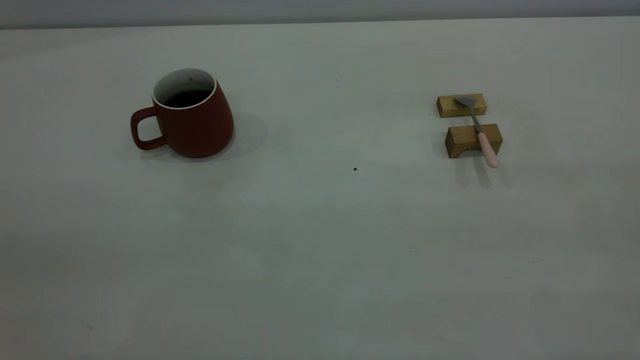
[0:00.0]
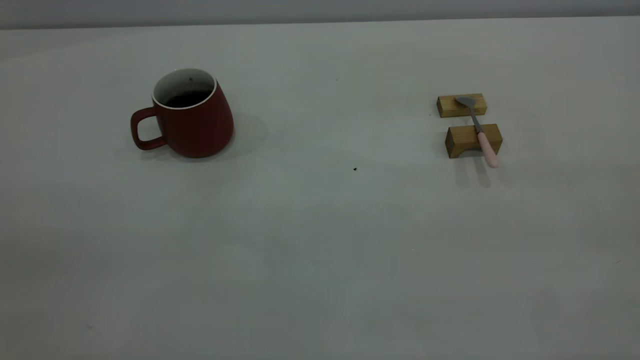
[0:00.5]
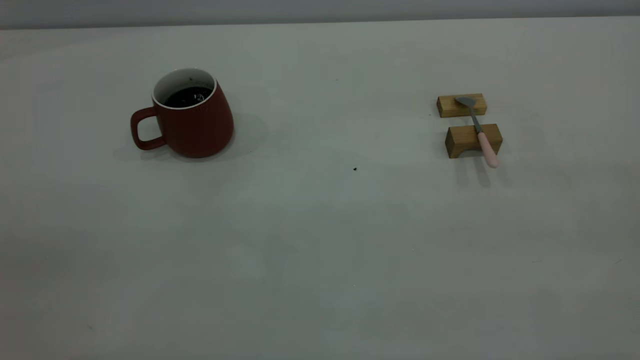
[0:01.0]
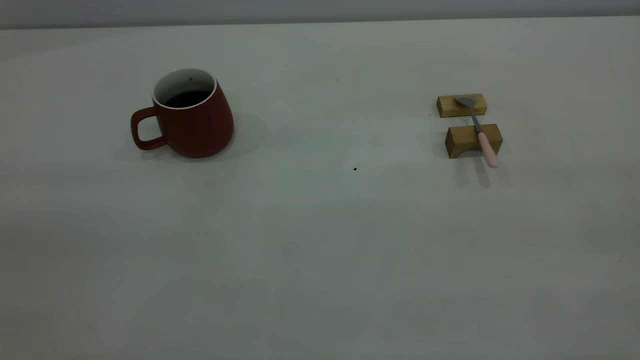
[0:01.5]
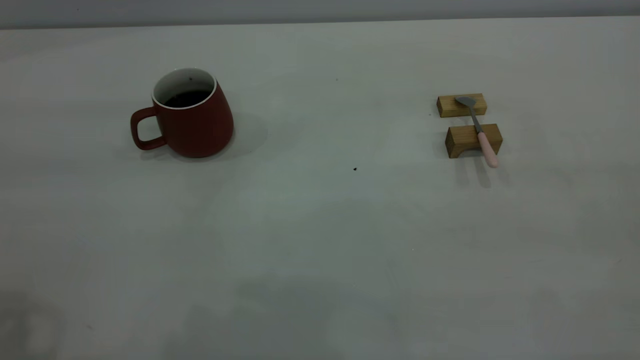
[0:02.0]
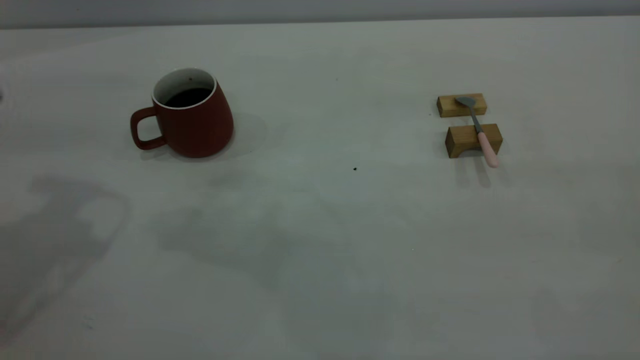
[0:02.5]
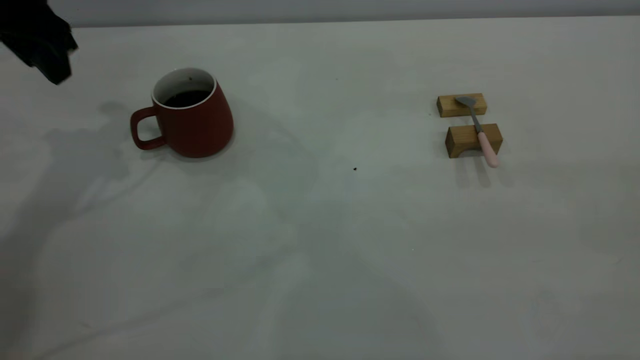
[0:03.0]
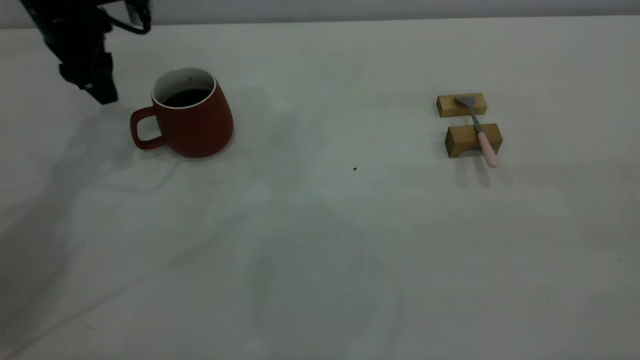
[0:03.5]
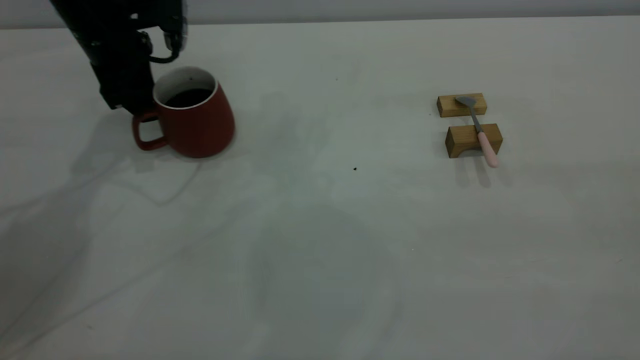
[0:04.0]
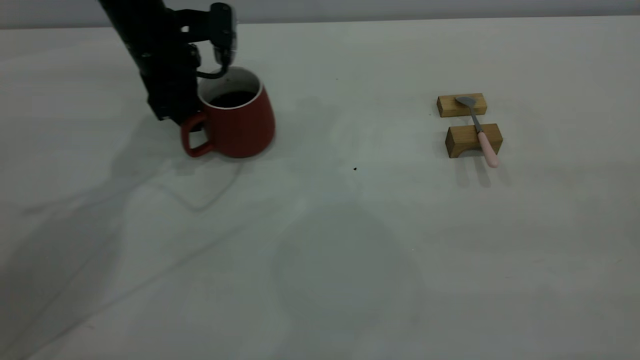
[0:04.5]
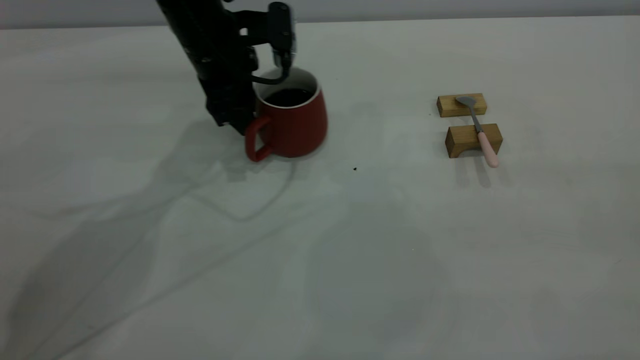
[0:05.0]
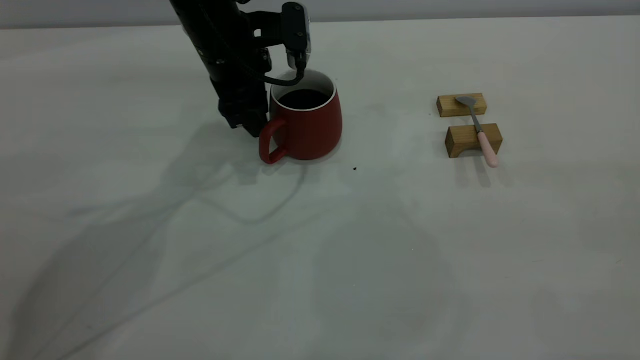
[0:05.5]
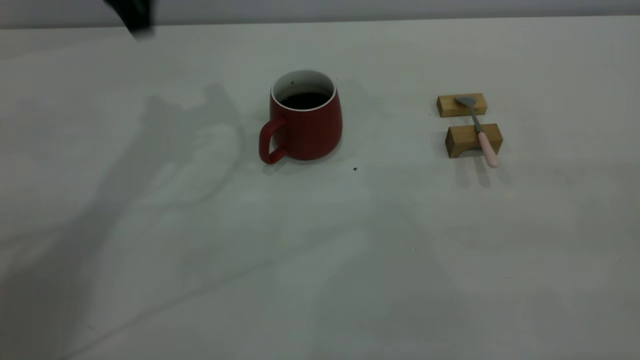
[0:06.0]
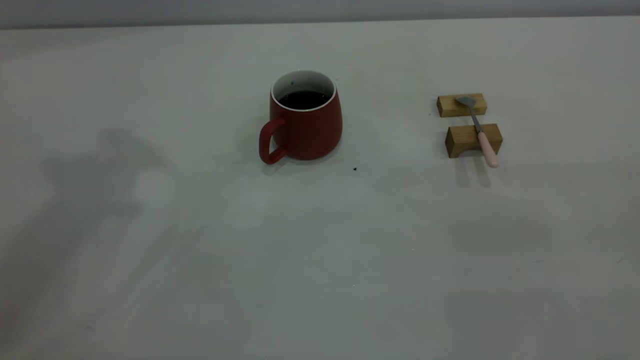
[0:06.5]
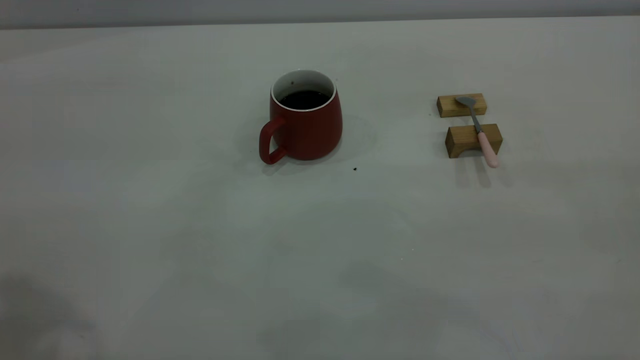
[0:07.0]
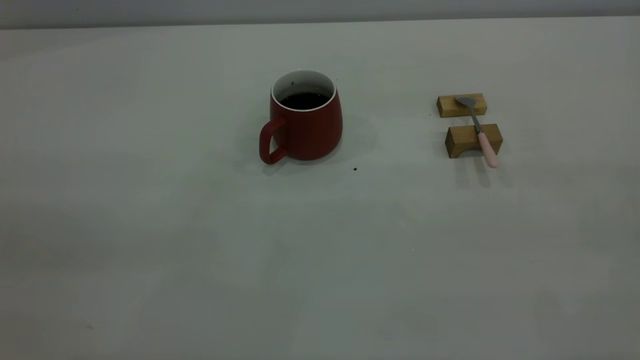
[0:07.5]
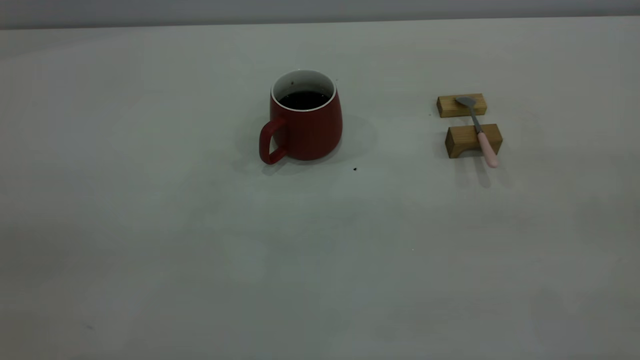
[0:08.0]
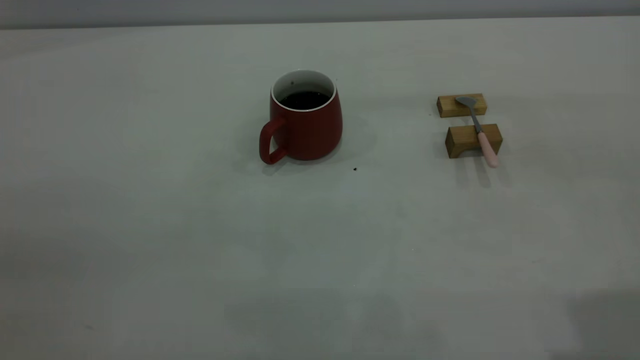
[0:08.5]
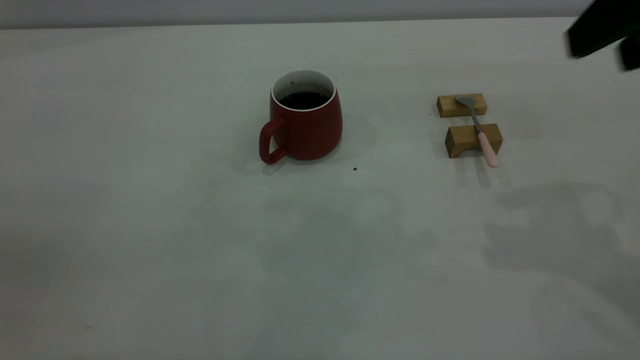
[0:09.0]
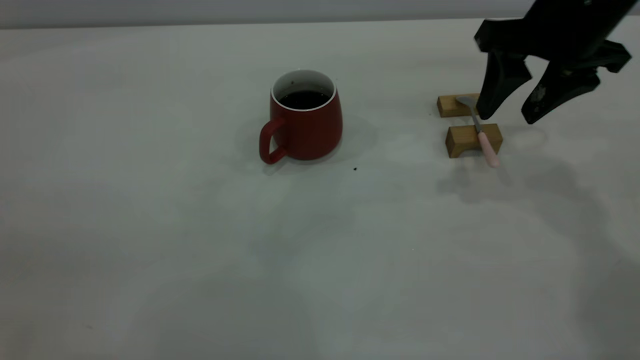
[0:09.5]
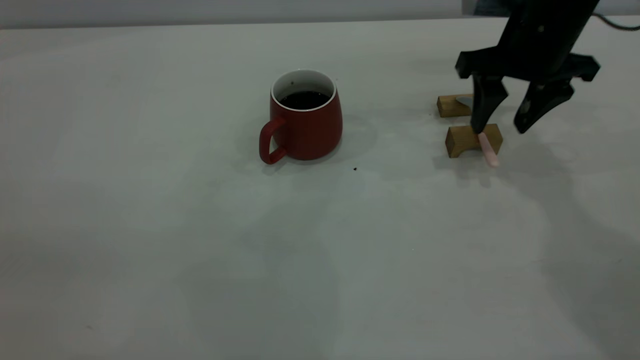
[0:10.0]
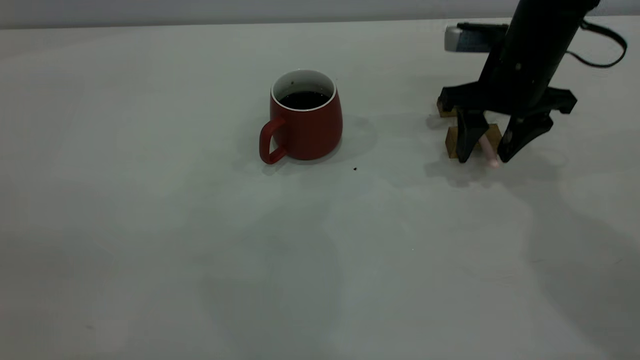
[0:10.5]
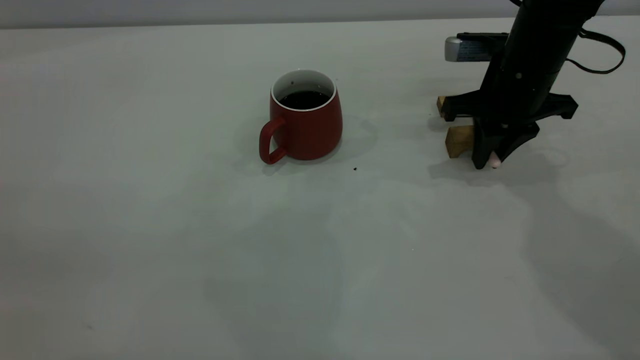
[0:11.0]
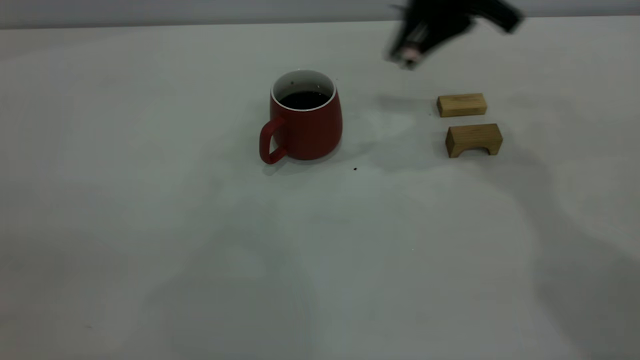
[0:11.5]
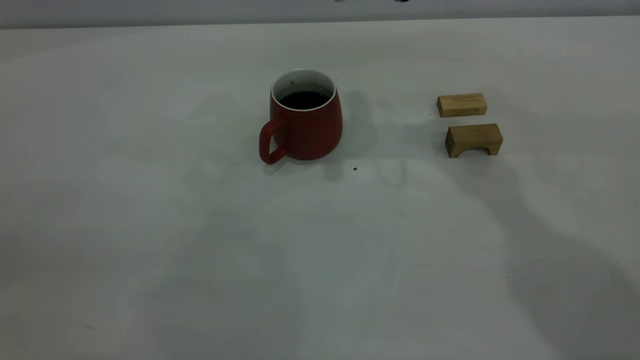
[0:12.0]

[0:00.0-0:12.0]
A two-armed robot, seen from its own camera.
Step, 0.0 to 5.5 s: Move the cup with coffee to the center of view.
Step, 6.0 to 11.0 s: Pick up the spoon.
2.0 to 4.0 s: The left gripper travels forward and downward by roughly 40 cm.
4.0 to 6.0 s: The left gripper travels upward by some 15 cm.
8.0 to 10.0 s: The right gripper travels forward and downward by approximately 40 cm, and opens its fingers.
10.0 to 12.0 s: The right gripper travels to the left and upward by about 20 cm, and closes up.

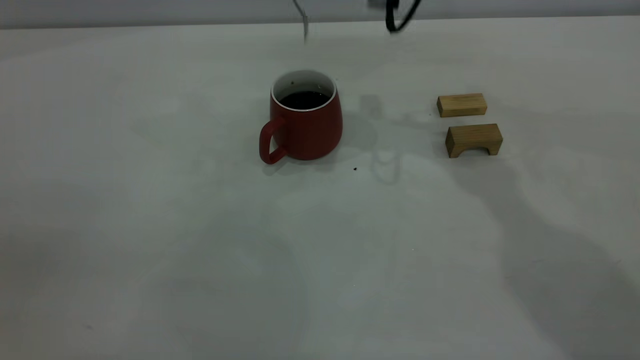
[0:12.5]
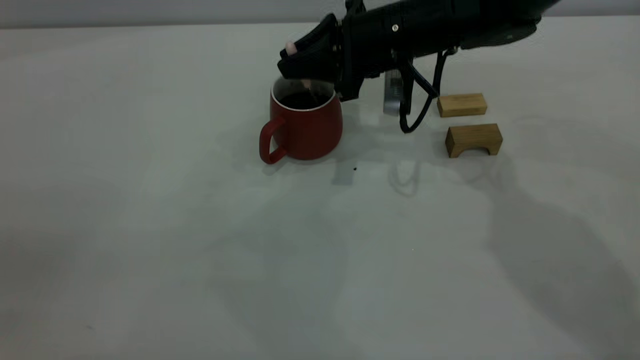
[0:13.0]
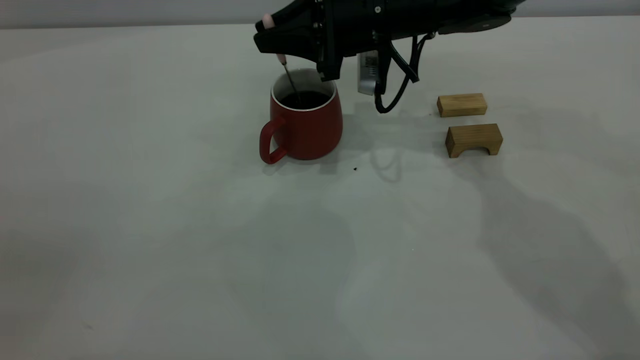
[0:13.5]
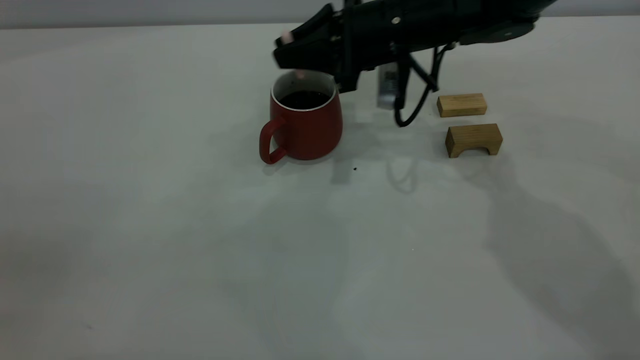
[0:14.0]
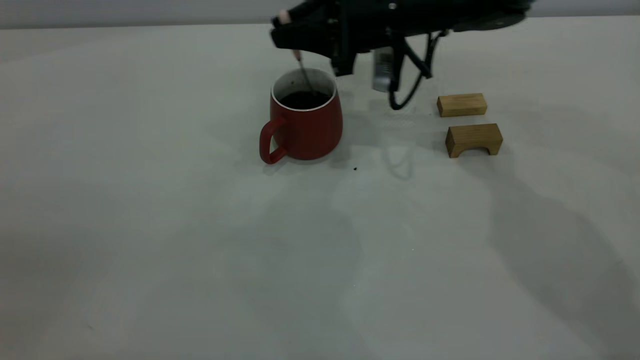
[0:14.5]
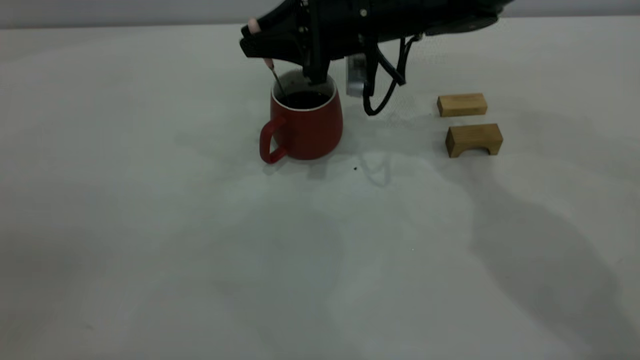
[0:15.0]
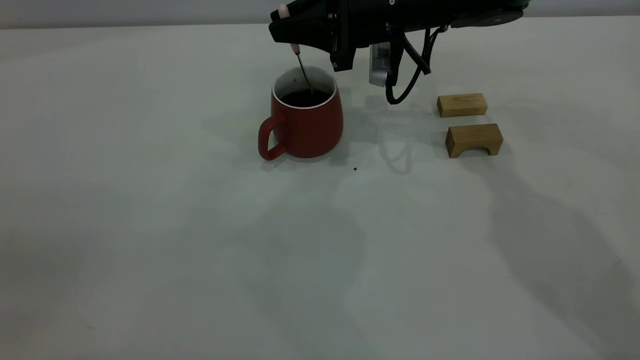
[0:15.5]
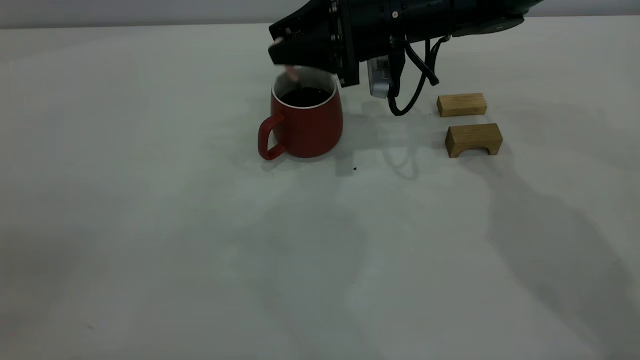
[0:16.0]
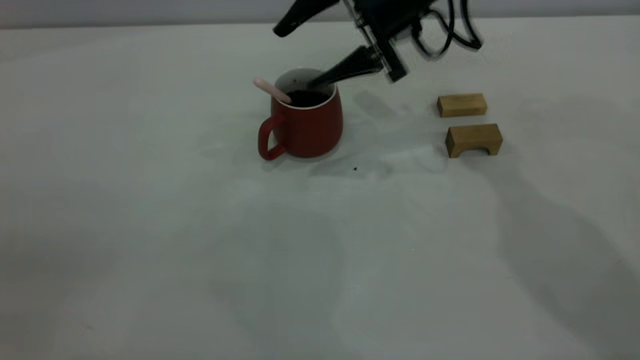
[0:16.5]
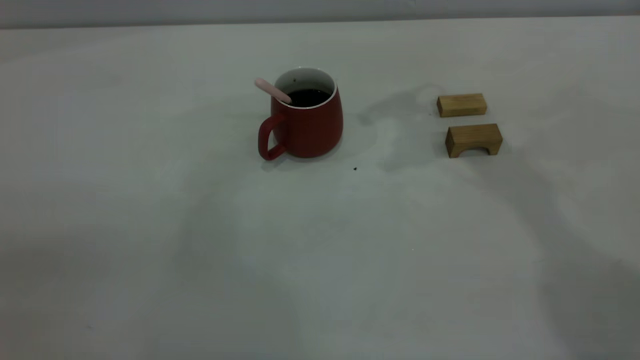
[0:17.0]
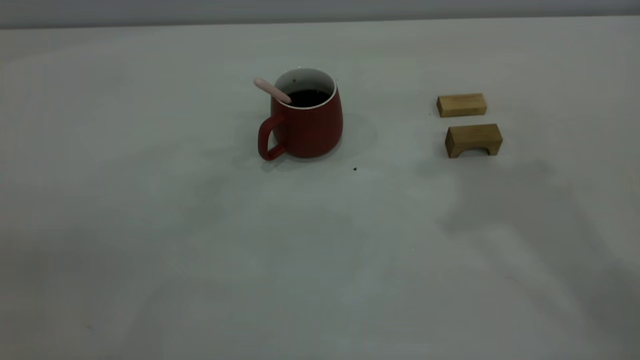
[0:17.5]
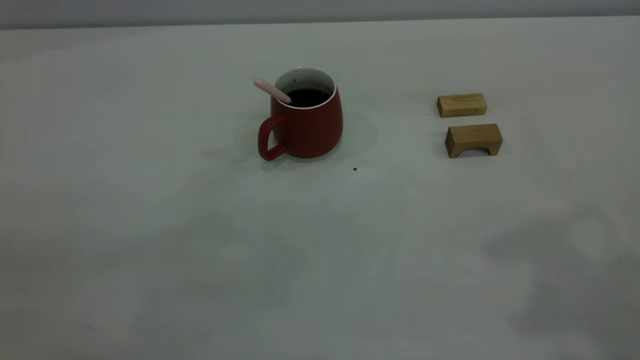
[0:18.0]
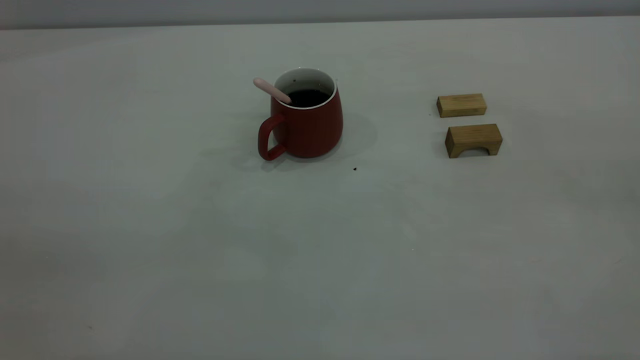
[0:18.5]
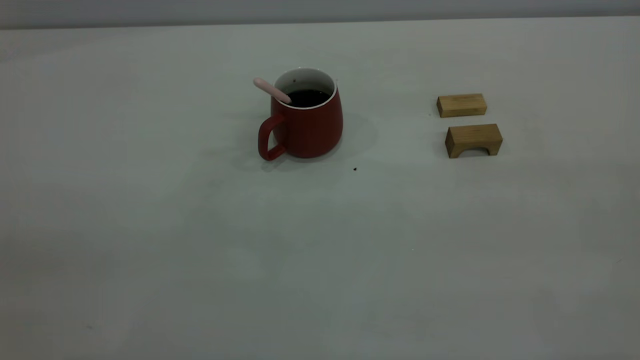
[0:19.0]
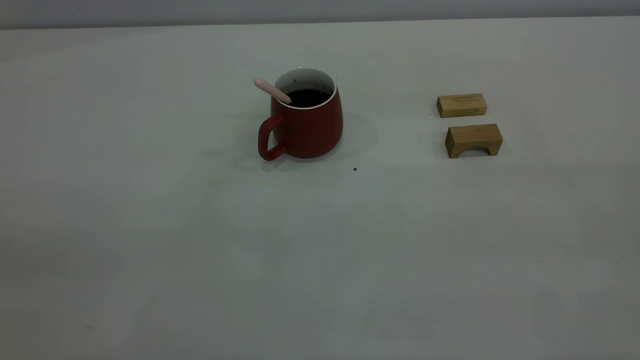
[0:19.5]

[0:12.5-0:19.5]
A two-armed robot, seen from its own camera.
Step, 12.5 to 16.5 s: Stir the coffee in the cup.
12.5 to 14.5 s: The right gripper goes roughly 10 cm downward.
14.5 to 16.0 s: The right gripper opens its fingers.
16.0 to 17.5 s: The right gripper moves upward and backward, approximately 40 cm, and closes its fingers.

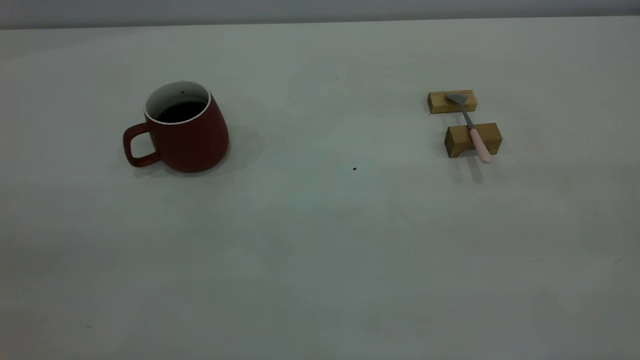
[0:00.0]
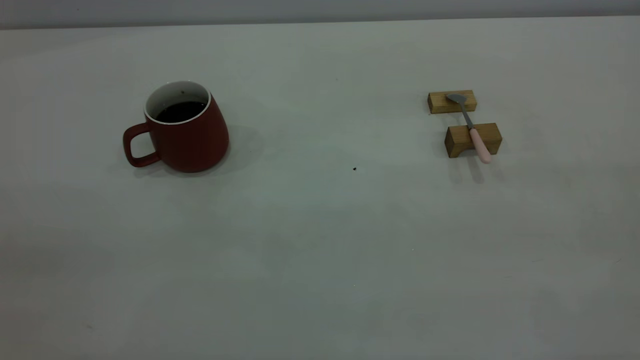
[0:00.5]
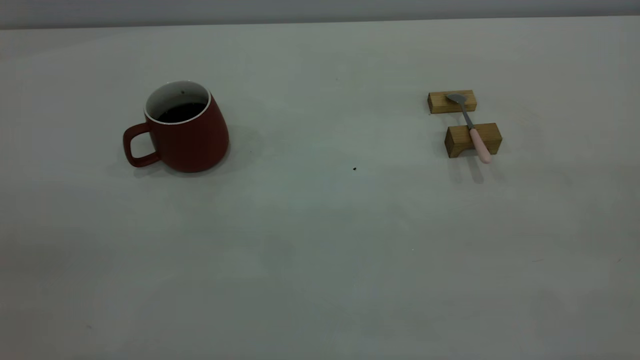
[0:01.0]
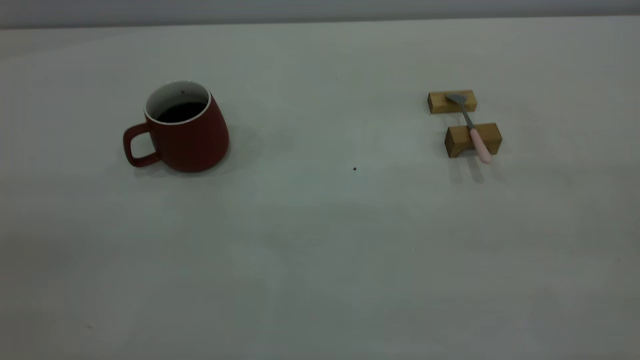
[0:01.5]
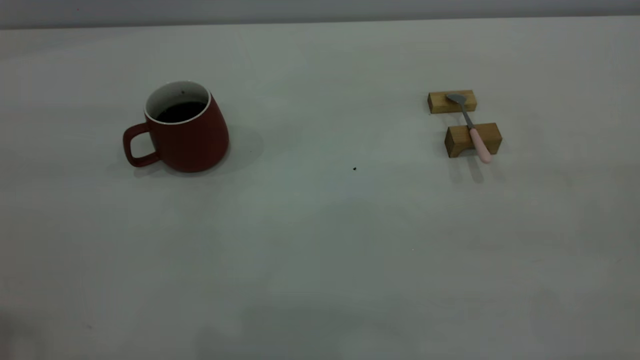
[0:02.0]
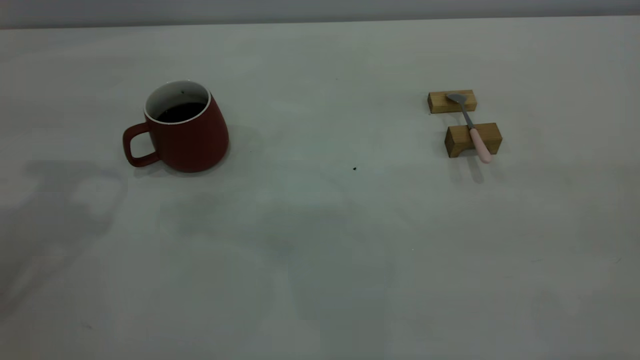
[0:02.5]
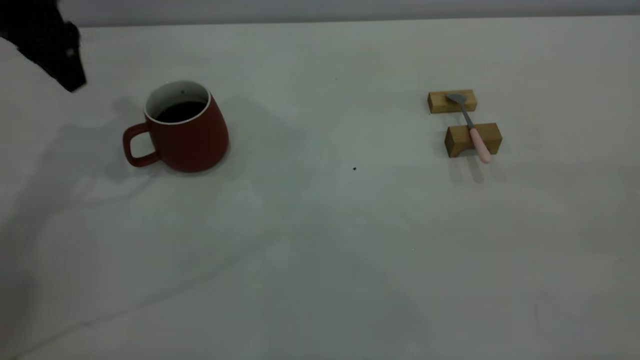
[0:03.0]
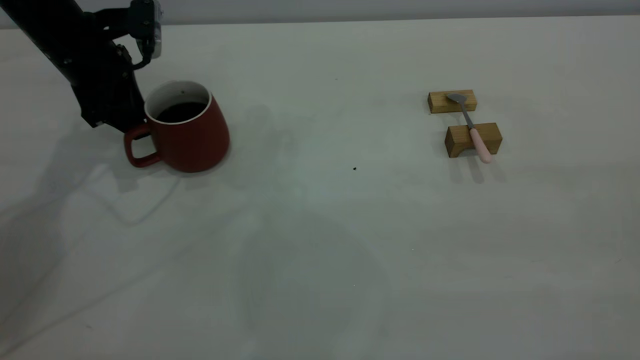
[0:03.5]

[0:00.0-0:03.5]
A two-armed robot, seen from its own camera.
2.0 to 3.5 s: The left gripper travels forward and downward by roughly 40 cm.
